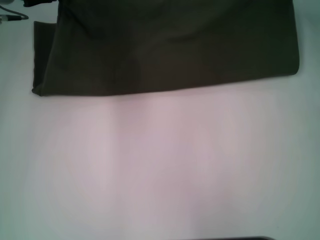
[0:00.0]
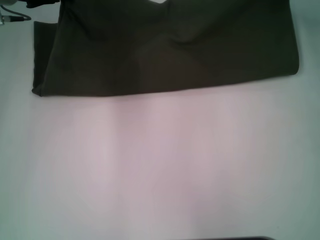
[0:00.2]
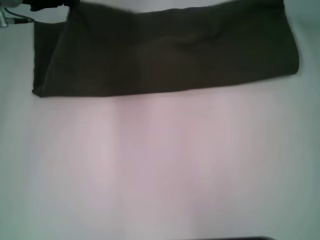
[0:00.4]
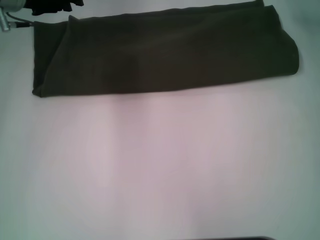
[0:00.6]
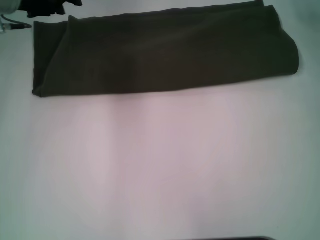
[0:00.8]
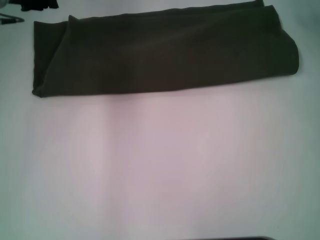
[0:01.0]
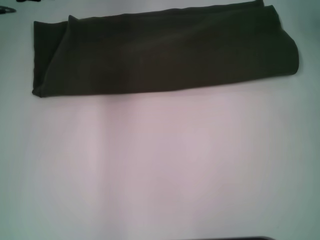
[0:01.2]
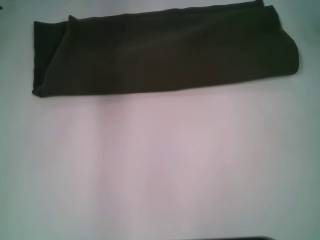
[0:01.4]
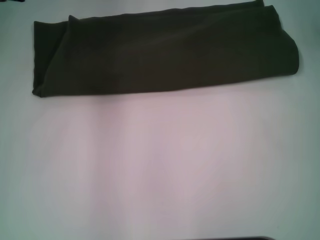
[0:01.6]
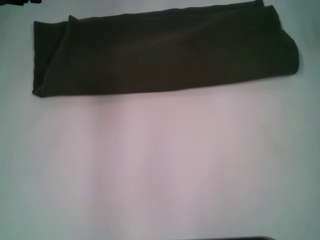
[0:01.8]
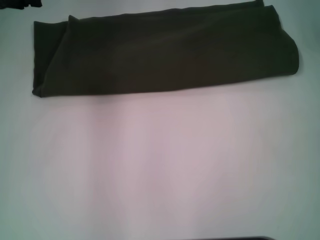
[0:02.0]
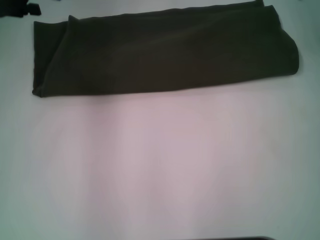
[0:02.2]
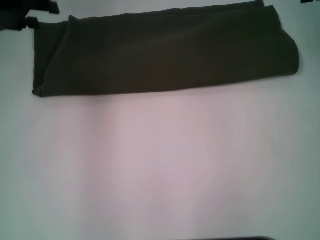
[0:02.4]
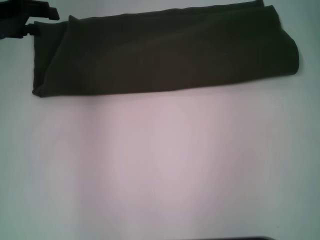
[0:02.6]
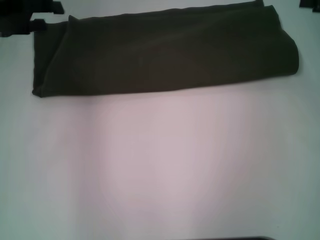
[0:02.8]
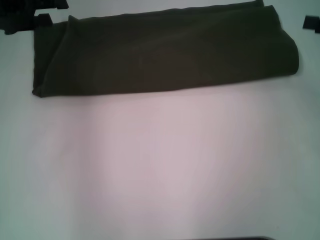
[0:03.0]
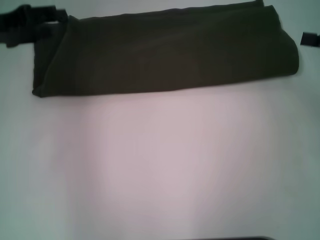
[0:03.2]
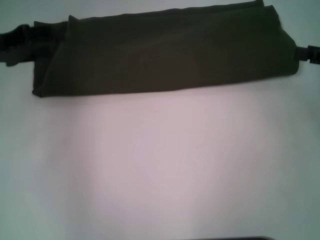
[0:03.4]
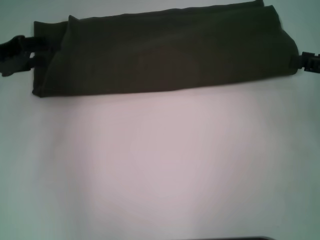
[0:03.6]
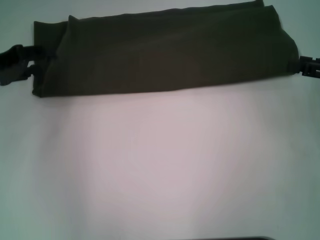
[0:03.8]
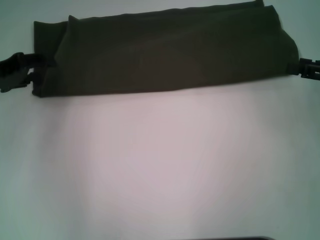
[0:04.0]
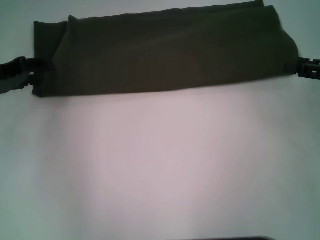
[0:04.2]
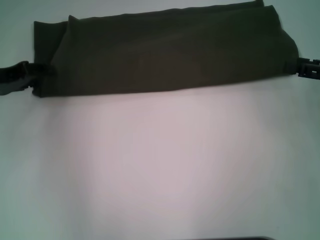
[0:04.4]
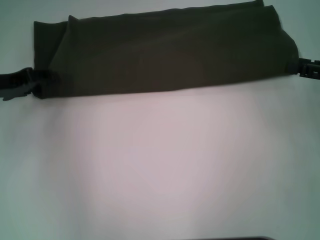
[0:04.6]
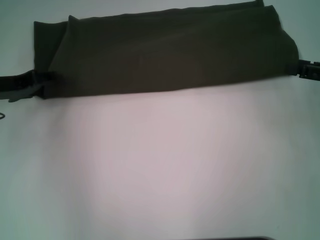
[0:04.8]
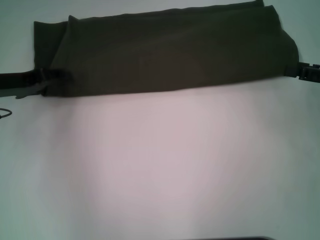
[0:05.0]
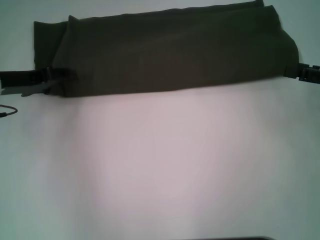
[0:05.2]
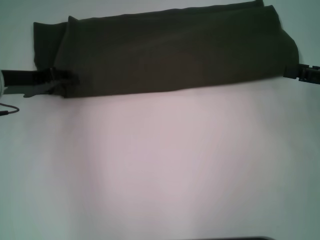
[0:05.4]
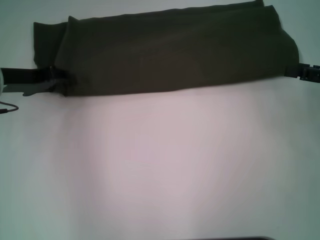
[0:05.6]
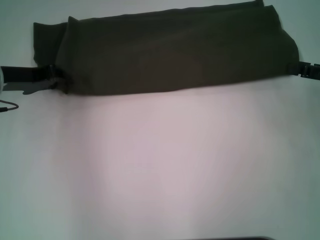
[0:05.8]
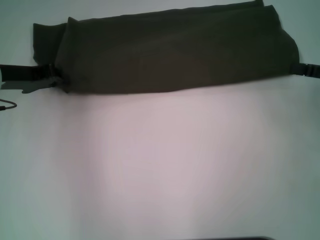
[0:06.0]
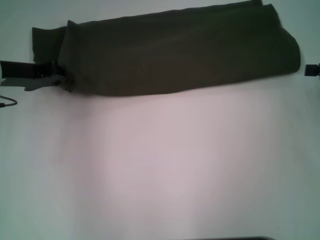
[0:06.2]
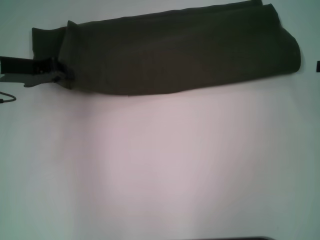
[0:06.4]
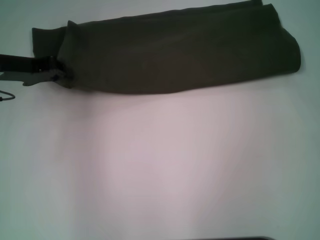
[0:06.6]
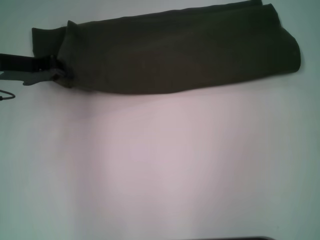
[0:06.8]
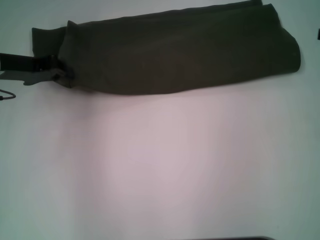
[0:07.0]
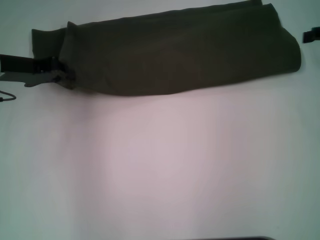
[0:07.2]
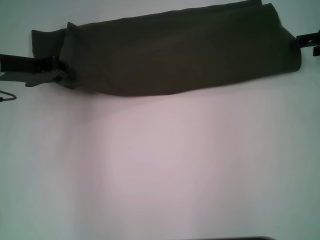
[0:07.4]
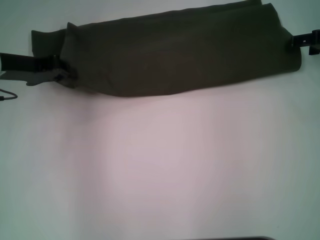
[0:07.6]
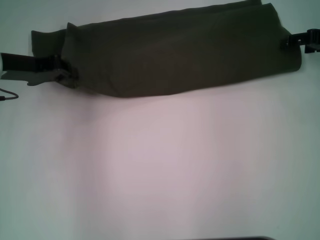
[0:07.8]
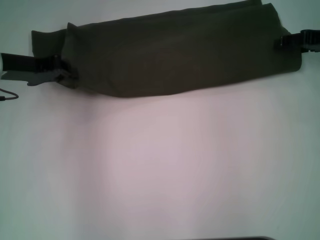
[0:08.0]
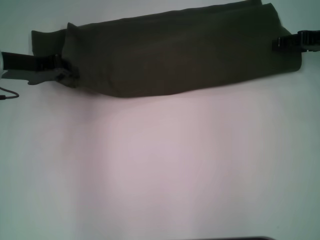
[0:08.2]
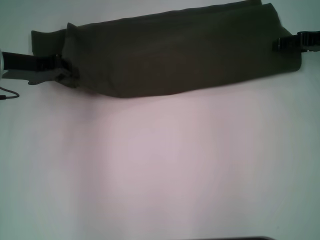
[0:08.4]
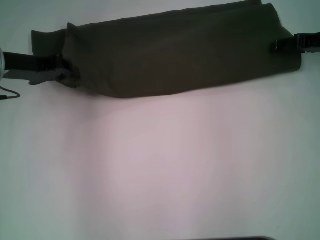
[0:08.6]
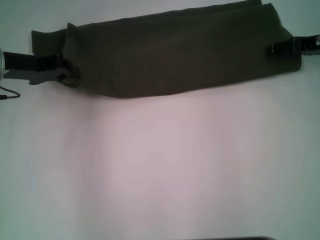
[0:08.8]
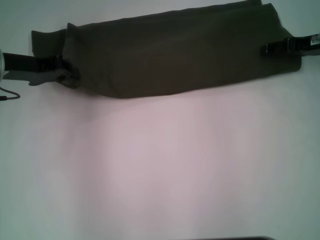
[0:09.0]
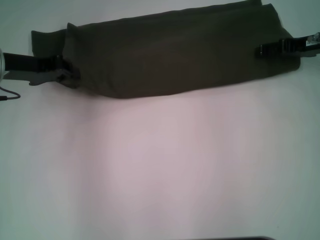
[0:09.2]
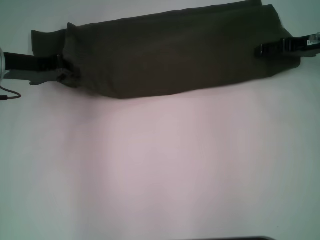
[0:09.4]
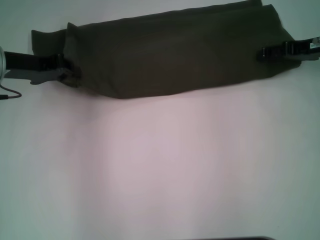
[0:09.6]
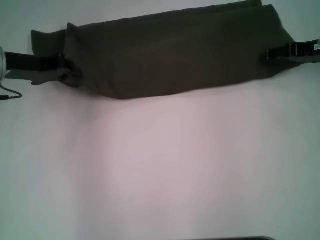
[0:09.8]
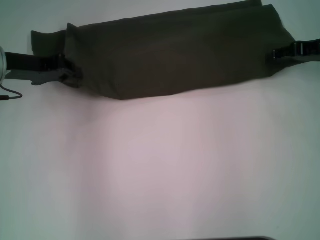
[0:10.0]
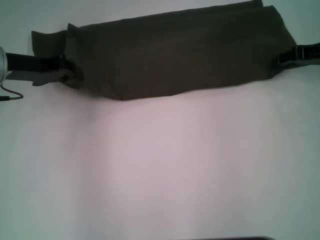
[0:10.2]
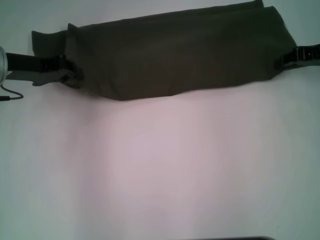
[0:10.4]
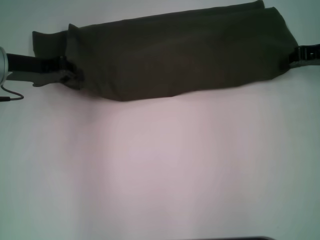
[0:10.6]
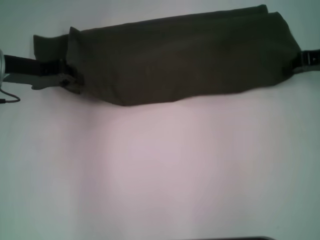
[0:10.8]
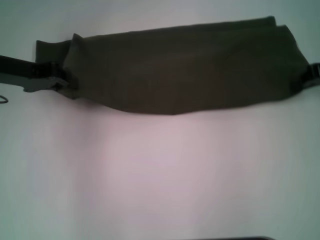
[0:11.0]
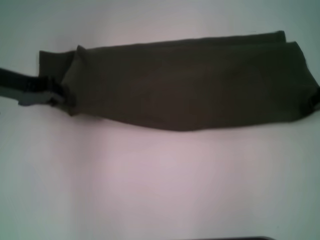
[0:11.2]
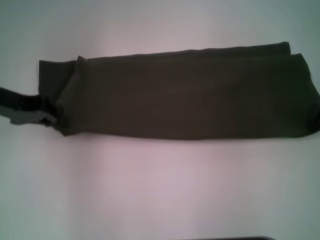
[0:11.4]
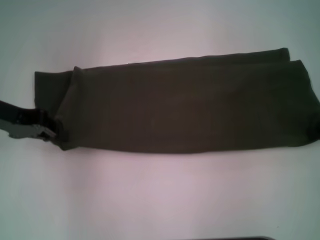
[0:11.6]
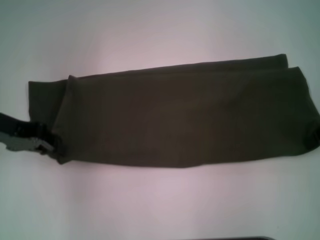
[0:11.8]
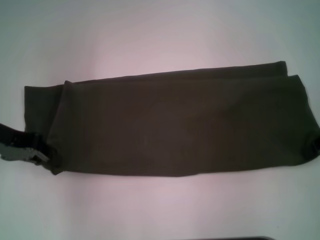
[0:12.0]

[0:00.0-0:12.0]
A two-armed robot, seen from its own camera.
0:00.0 to 0:01.6: The right gripper heads upward, covering roughly 5 cm, and opens up; the left gripper moves about 5 cm, and opens up.
0:01.6 to 0:03.0: The left gripper changes place by approximately 5 cm; the right gripper goes approximately 15 cm backward, downward and to the right.
0:03.0 to 0:04.4: The left gripper moves downward, approximately 10 cm, while the right gripper ends up about 5 cm from where it was.
0:04.4 to 0:06.0: The left gripper closes its fingers.
0:06.0 to 0:07.6: The right gripper is displaced forward by approximately 10 cm.
0:07.6 to 0:09.0: The grippers move only a little.
0:09.0 to 0:10.4: The right gripper closes.
0:10.4 to 0:12.0: Both grippers move backward, approximately 5 cm. The right gripper closes up.

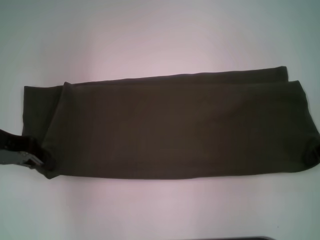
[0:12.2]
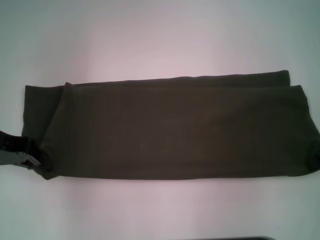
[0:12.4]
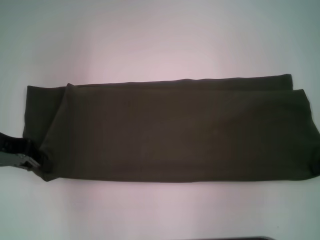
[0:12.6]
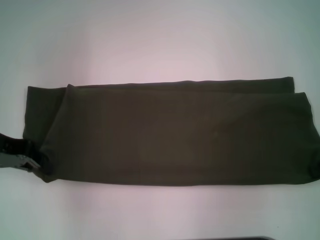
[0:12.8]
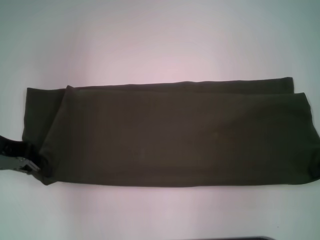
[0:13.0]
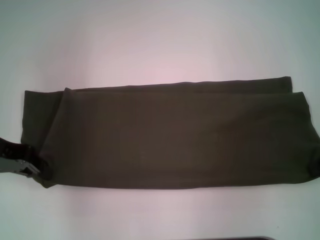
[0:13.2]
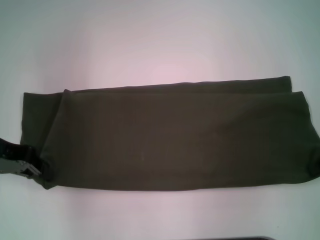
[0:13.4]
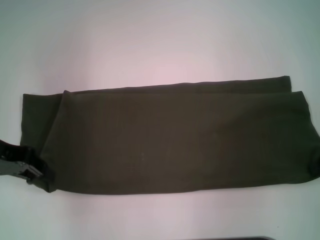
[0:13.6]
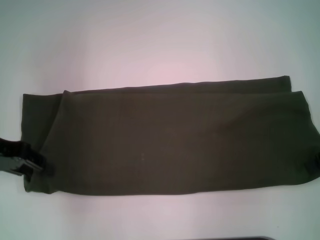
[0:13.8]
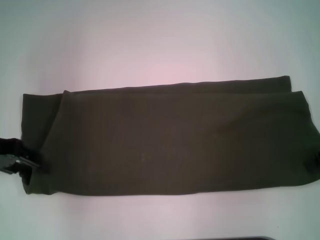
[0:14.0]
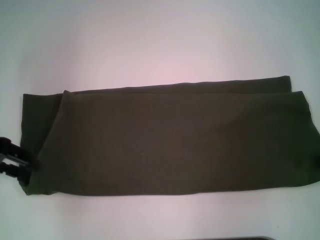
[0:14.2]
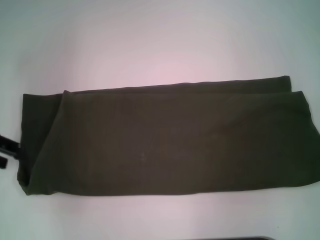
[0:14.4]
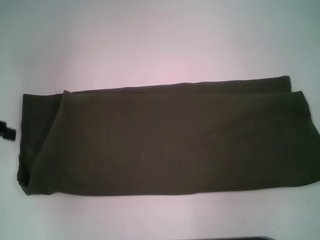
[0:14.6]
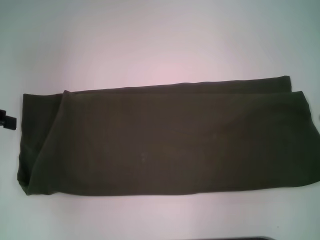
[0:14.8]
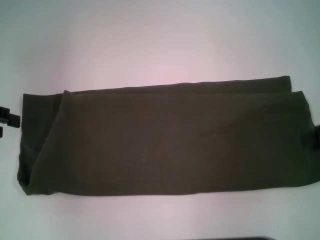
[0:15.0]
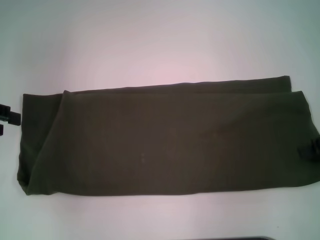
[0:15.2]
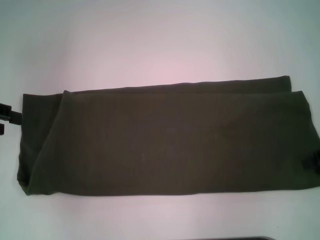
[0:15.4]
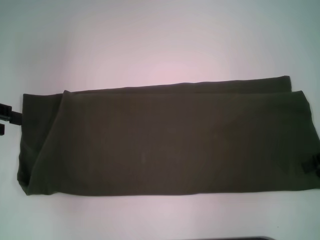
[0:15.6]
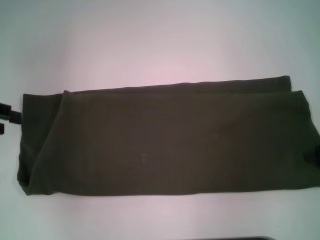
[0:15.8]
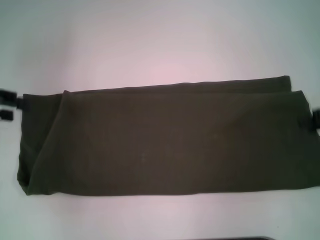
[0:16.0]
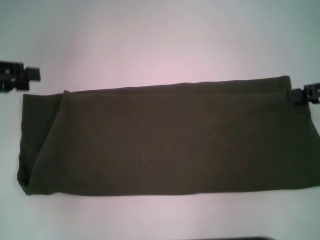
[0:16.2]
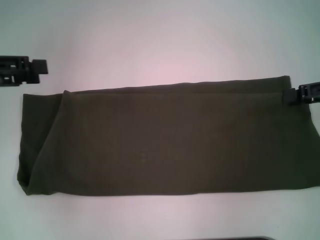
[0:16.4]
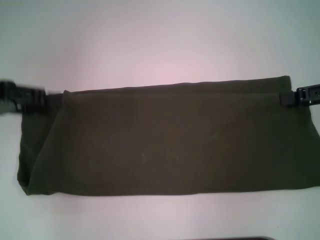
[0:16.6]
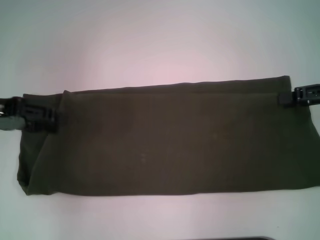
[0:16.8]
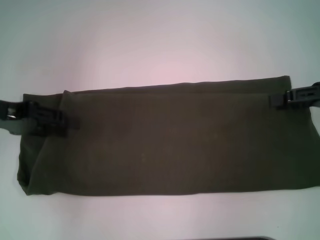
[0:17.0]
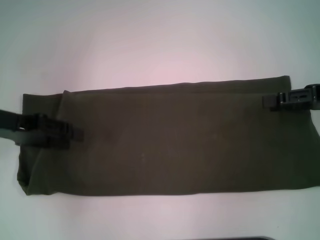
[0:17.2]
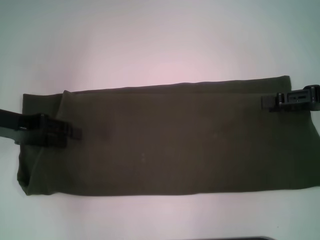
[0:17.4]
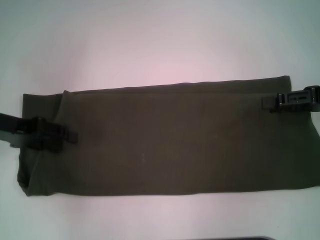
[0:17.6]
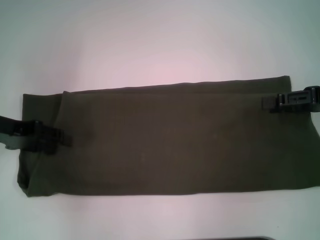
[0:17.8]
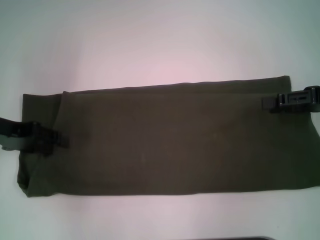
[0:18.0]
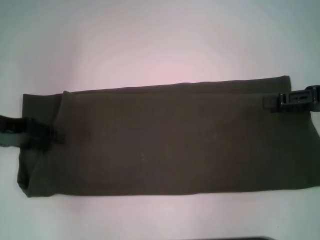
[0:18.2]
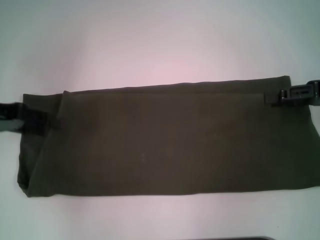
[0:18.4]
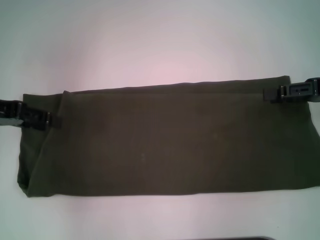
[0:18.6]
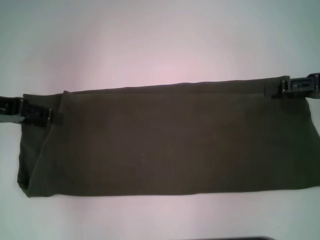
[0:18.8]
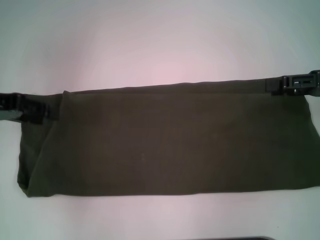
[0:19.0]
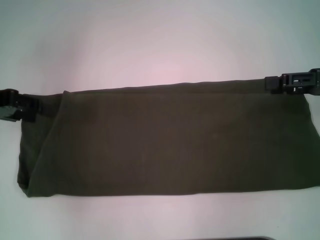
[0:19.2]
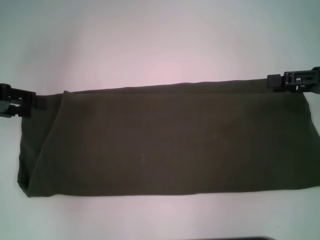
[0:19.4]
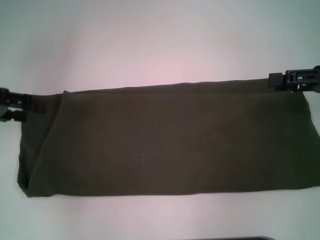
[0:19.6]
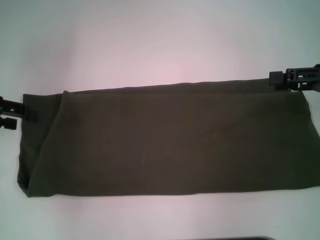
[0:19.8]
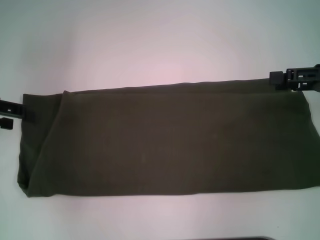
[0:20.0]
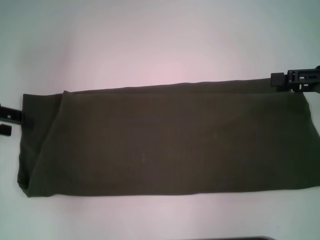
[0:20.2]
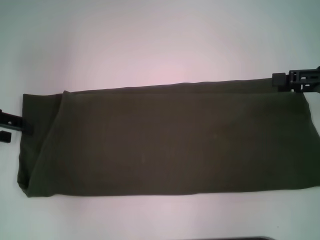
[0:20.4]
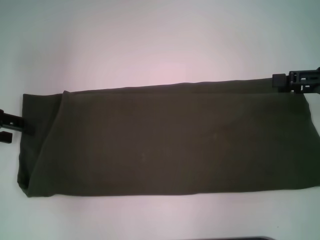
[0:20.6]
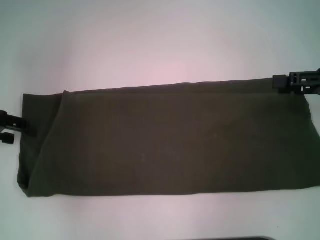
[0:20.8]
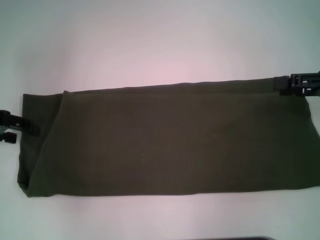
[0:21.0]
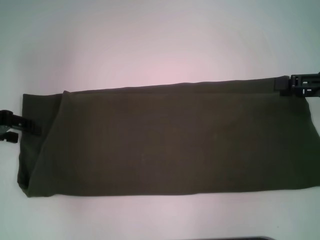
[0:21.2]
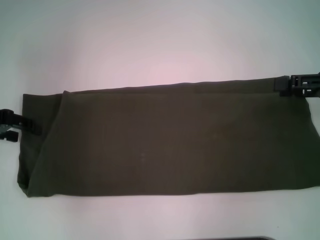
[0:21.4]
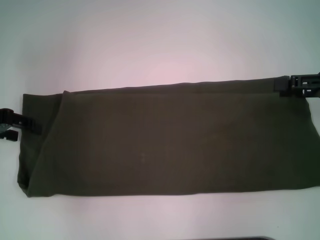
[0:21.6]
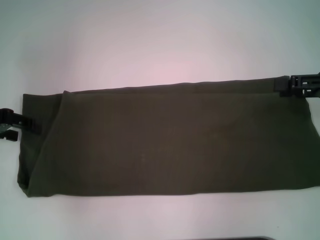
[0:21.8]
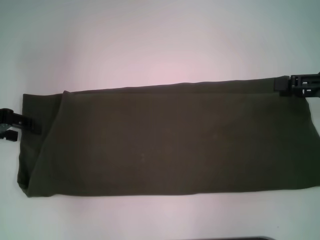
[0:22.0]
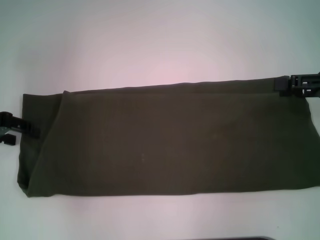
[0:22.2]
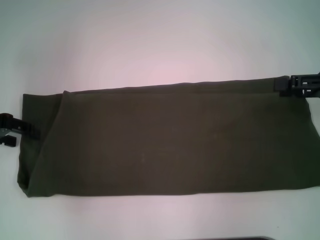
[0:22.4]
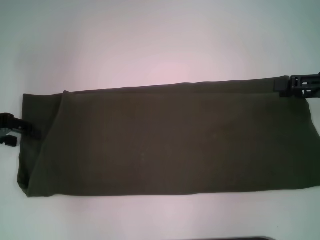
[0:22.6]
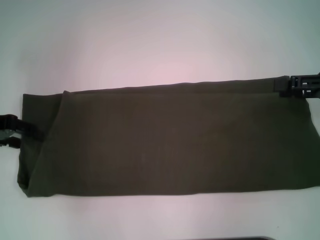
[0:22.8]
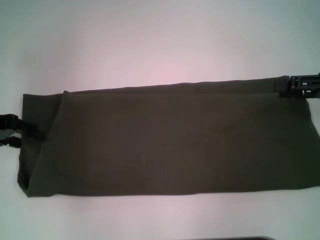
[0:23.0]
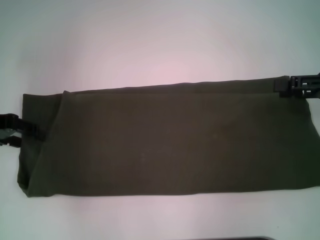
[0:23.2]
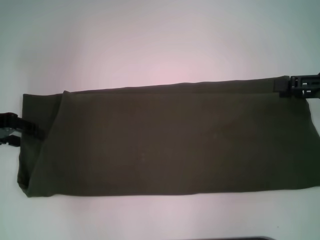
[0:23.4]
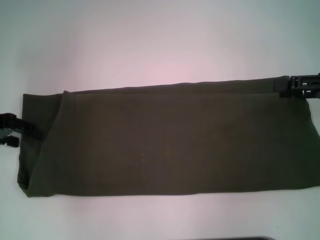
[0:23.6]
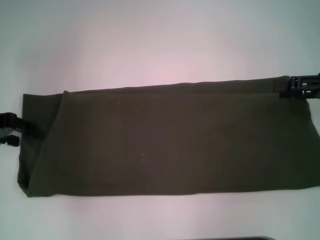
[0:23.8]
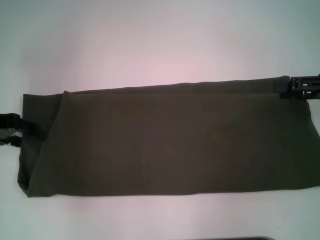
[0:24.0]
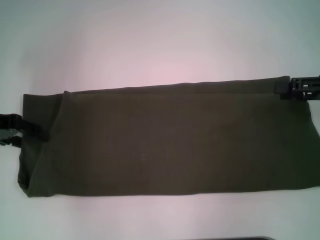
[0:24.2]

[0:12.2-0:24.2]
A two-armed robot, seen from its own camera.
0:12.2 to 0:13.8: The grippers move only a little.
0:13.8 to 0:15.2: The left gripper travels to the left by roughly 5 cm, and opens.
0:16.6 to 0:18.2: The left gripper is displaced downward by approximately 5 cm.
0:18.2 to 0:19.8: The left gripper ends up some 5 cm from where it was.
0:19.8 to 0:21.2: The grippers stay close to where they were, moving slightly.
0:21.2 to 0:22.6: Both grippers stay about where they are.
0:22.6 to 0:24.2: Both grippers stay about where they are.
